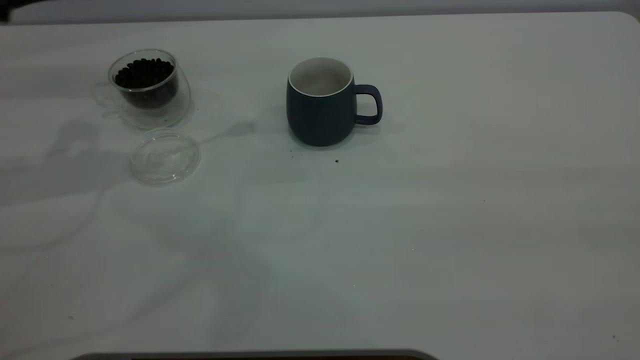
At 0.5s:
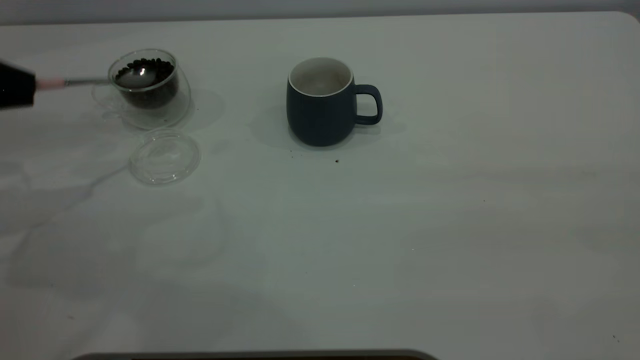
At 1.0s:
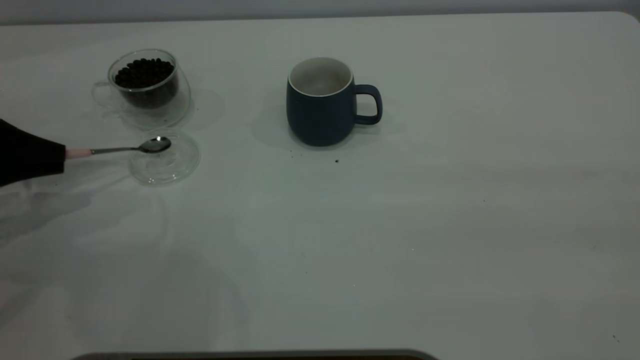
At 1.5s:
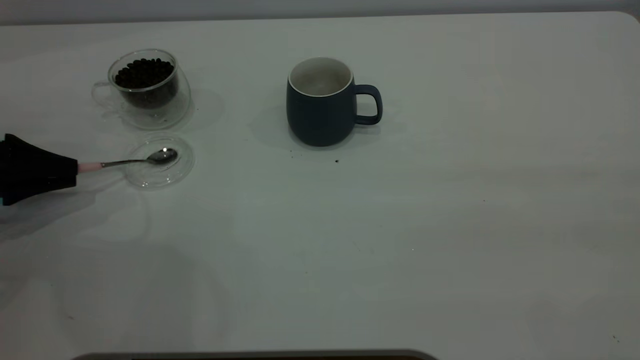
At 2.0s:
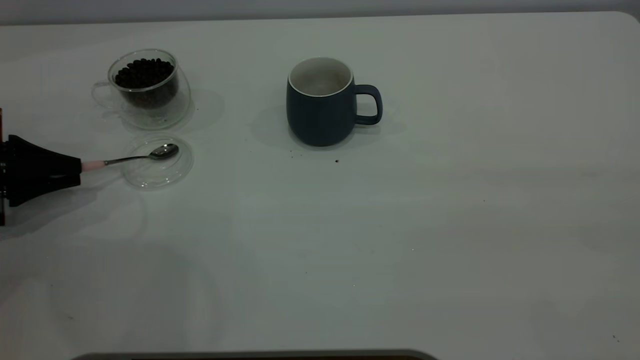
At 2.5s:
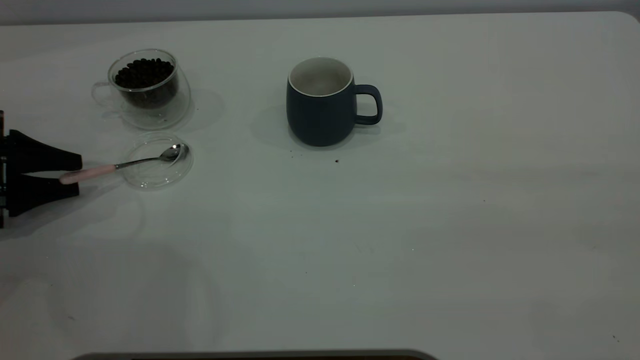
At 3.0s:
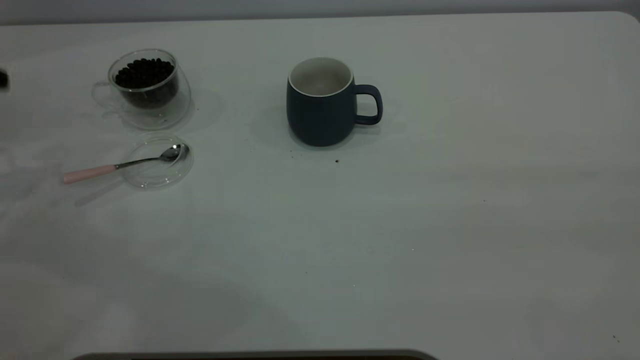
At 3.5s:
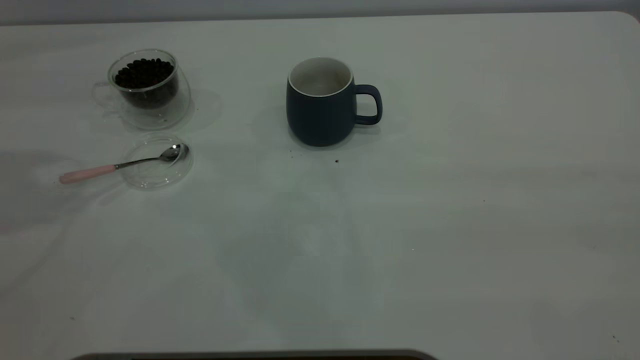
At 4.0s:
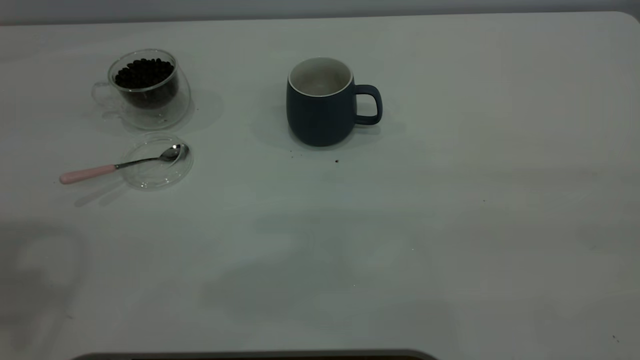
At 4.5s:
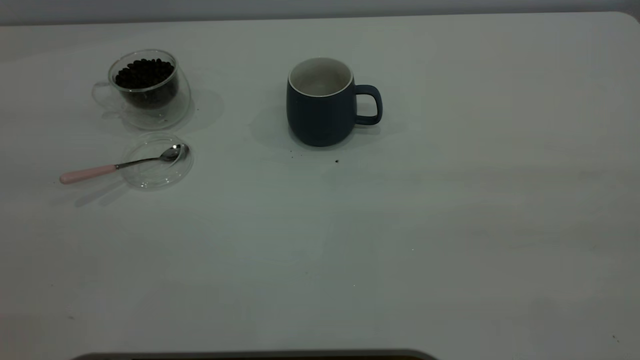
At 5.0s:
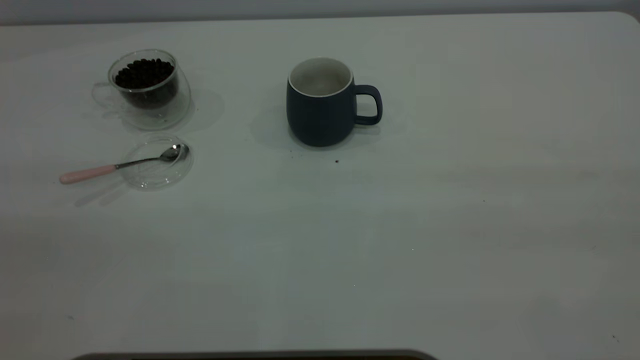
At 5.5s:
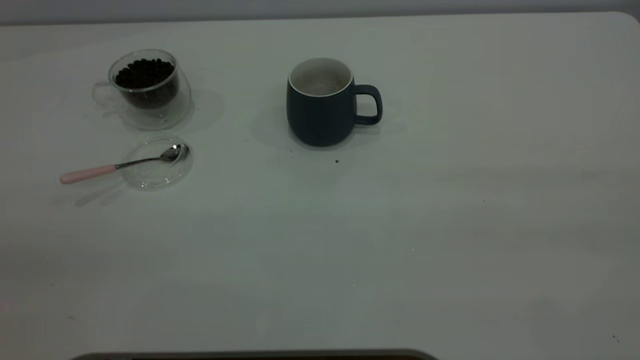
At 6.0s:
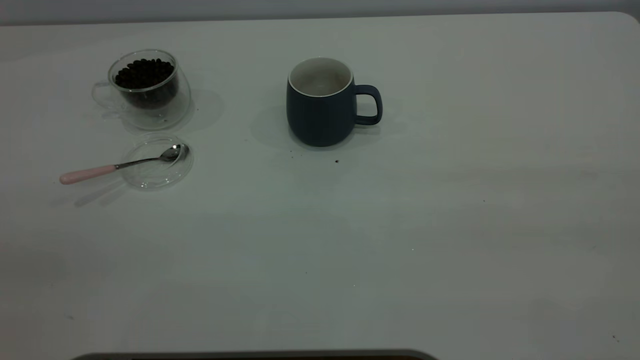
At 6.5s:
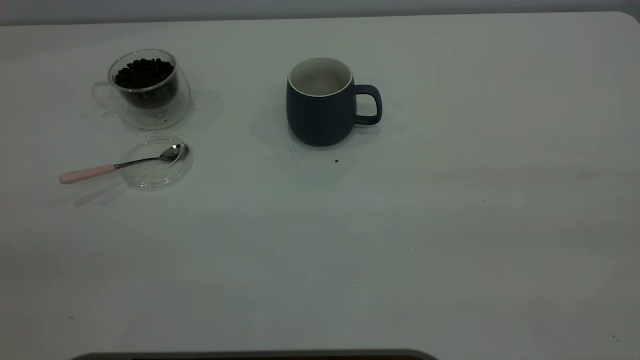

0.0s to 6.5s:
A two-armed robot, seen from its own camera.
Task of the whole recording: the right gripper place the grey cup in the center of the table, the left gripper take the pink spoon from the cup lid and scoop out the coffee beans from the coffee cup and put them into the grey cup, the left gripper put the spoon back into the cup lid.
Step, 0.0s to 2.5s: Place the spoon back in its original place.
0.0s to 2.0s: The left gripper moves downward, approximately 20 cm.
2.0s to 4.5s: The left gripper shifts roughly 40 cm upward and backward, and opens up.
